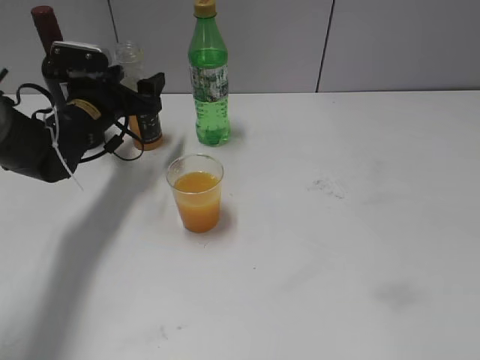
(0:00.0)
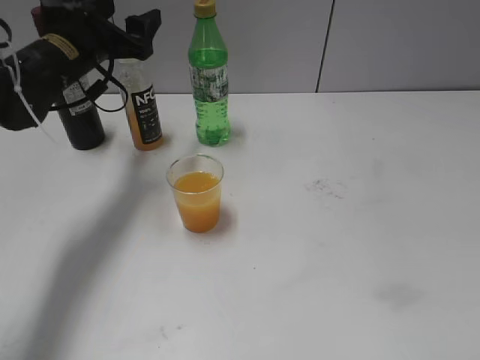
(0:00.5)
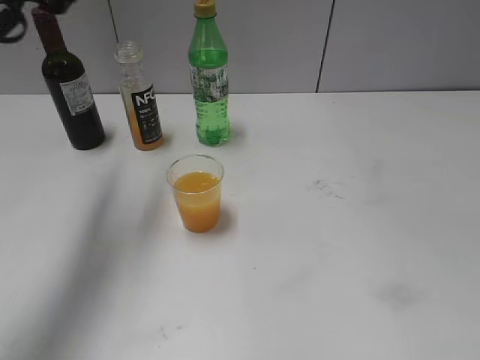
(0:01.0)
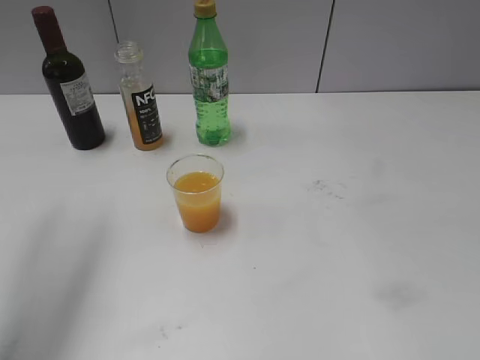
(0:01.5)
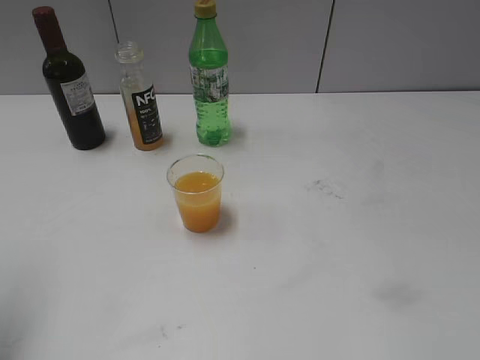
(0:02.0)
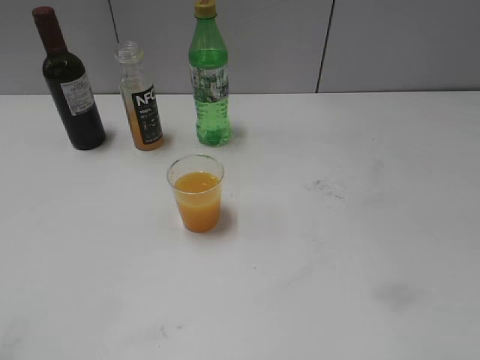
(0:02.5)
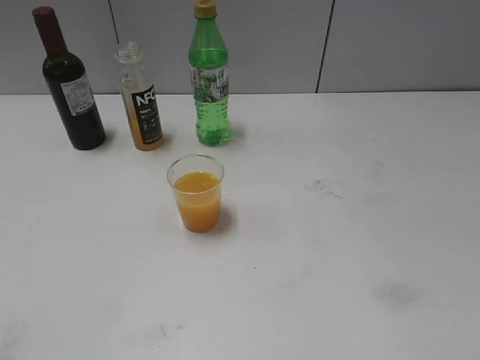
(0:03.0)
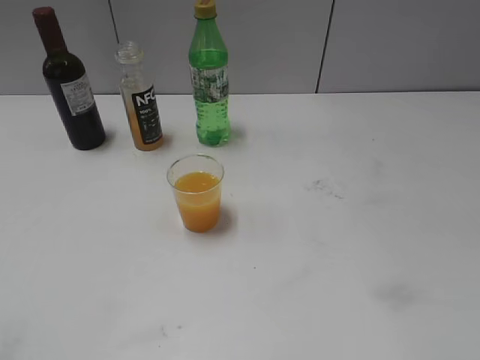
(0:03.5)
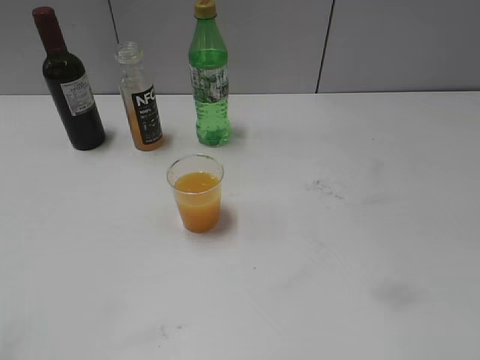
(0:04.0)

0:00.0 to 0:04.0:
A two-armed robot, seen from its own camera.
0:00.0 to 0:02.0: The left gripper moves upward, backward and to the left, approximately 40 cm.
0:02.0 to 0:04.0: The left gripper heads backward and downward, covering roughly 20 cm.

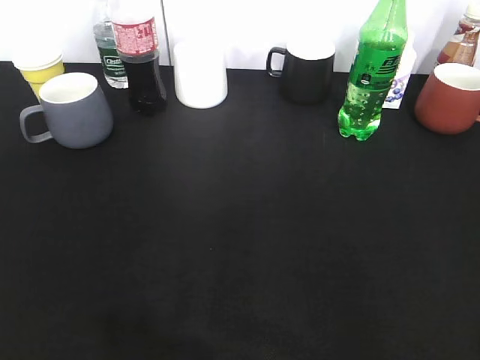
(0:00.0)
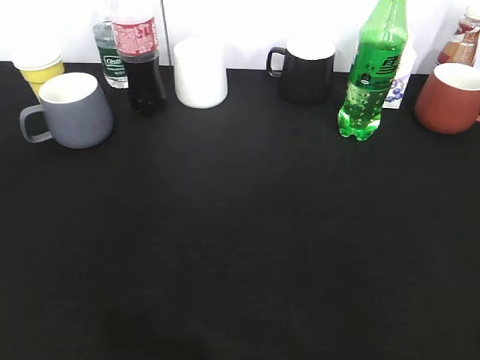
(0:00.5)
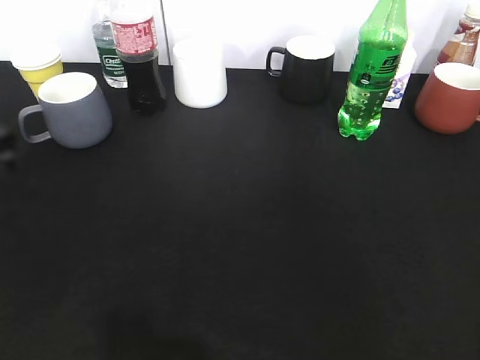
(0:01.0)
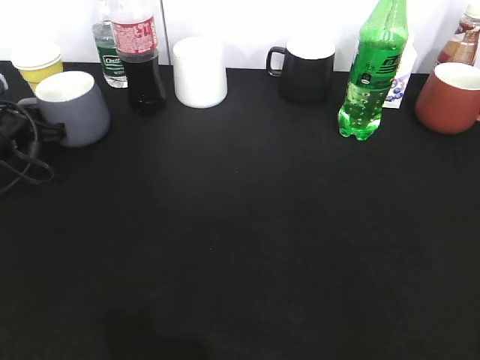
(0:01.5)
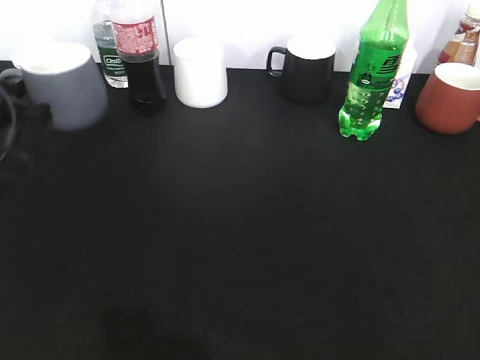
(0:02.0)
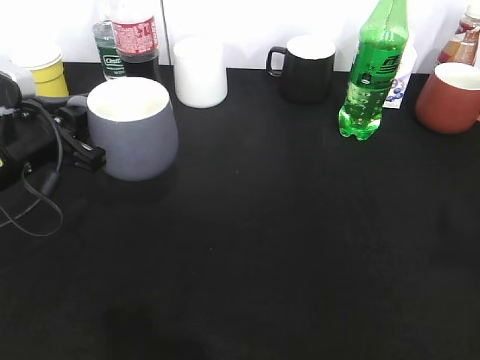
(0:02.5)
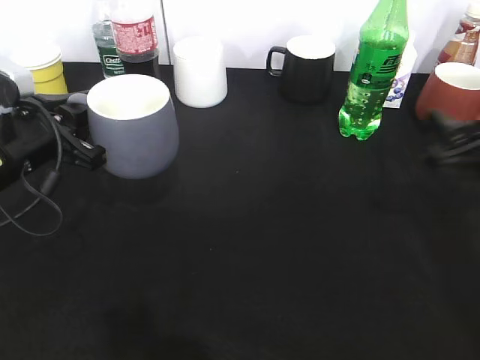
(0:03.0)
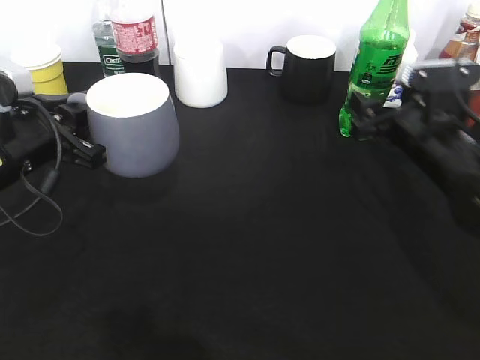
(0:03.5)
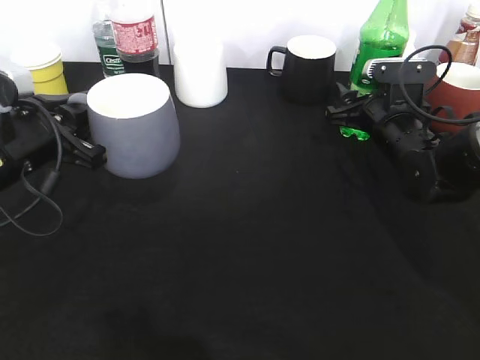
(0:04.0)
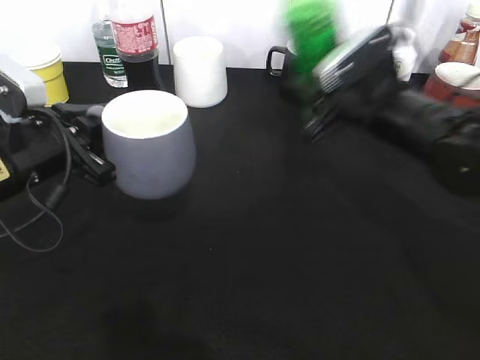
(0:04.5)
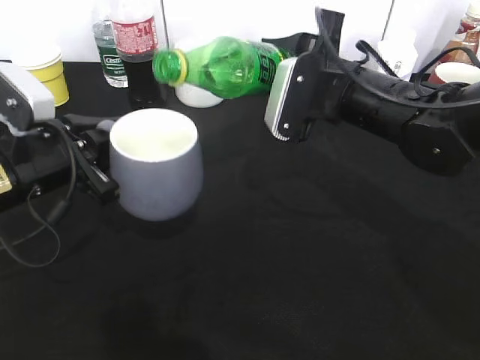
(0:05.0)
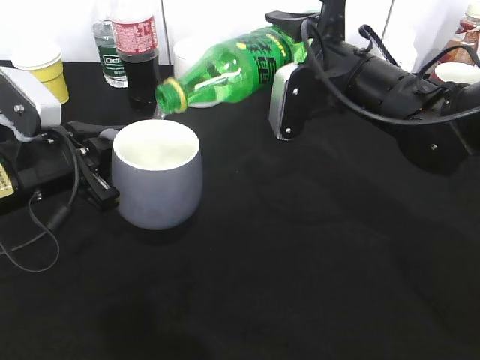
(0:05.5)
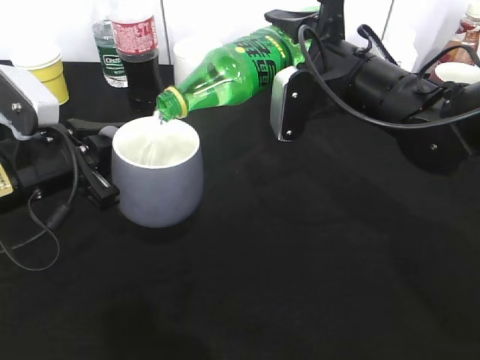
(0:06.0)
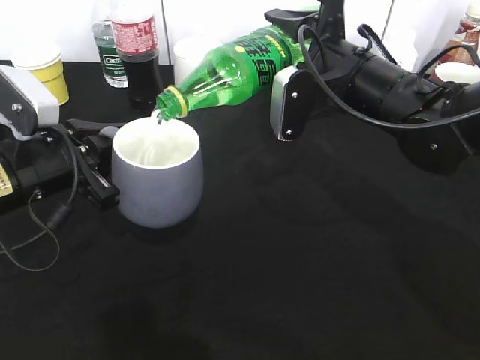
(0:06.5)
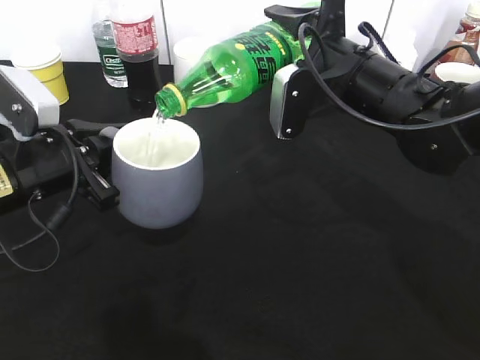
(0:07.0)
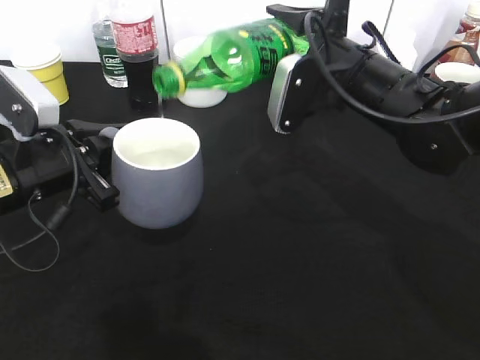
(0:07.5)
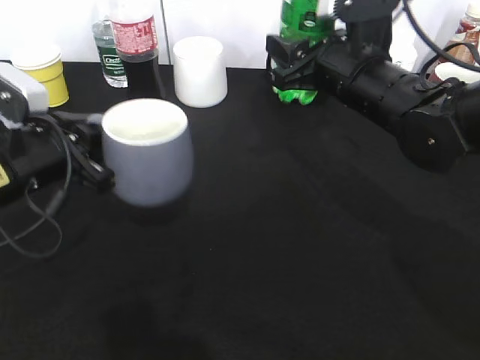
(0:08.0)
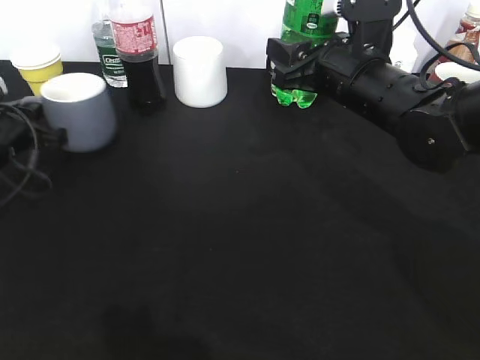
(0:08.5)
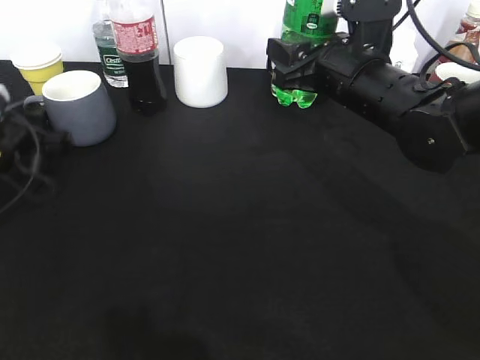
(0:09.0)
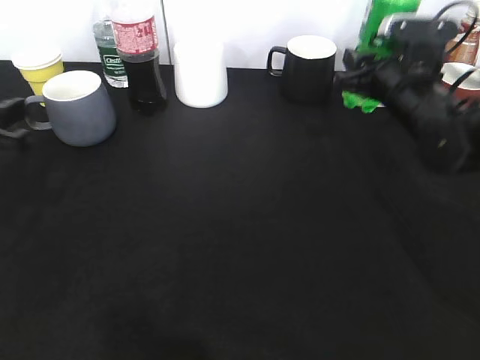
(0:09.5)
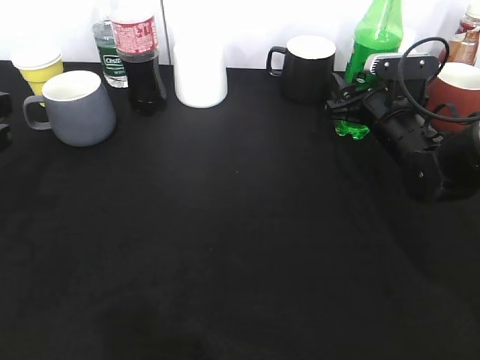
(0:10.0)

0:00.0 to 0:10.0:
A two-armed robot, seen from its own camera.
Step, 0:00.0 to 0:01.5: Grasp the grey cup with left gripper.
Step, 0:02.0 to 0:02.5: Lift the grey cup with left gripper.
Step, 0:03.0 to 0:04.0: Grasp the bottle with sprite with right gripper.
Step, 0:04.5 to 0:07.5: Pour the sprite from bottle to cup with right gripper.
0:00.0 to 0:02.0: The left gripper heads forward, covering about 35 cm, and closes its fingers.
0:02.0 to 0:04.0: The left gripper travels to the right and backward by about 10 cm, while the right gripper is displaced forward and downward by about 40 cm.
0:04.0 to 0:06.0: The right gripper travels upward and to the left by roughly 15 cm, and closes.
0:08.0 to 0:10.0: The left gripper heads to the left and upward, covering about 10 cm, reaches roughly 10 cm forward, then returns, and opens, while the right gripper shifts about 10 cm downward and to the right, and opens up.

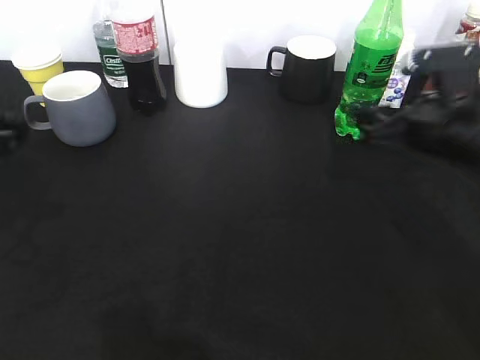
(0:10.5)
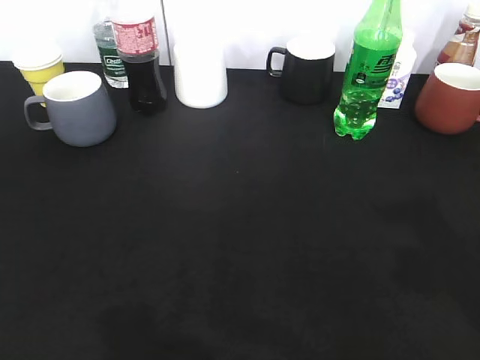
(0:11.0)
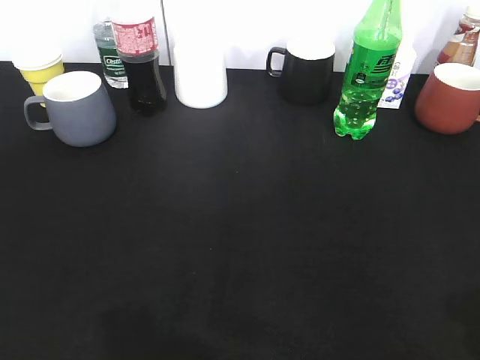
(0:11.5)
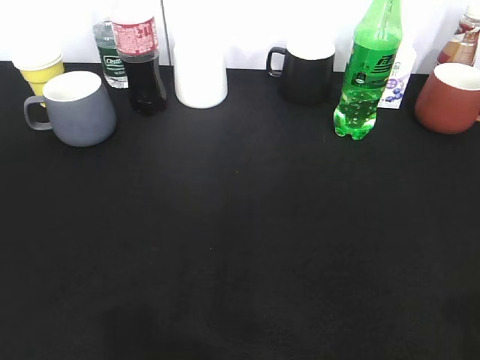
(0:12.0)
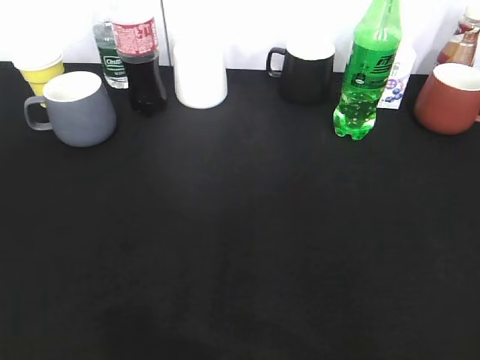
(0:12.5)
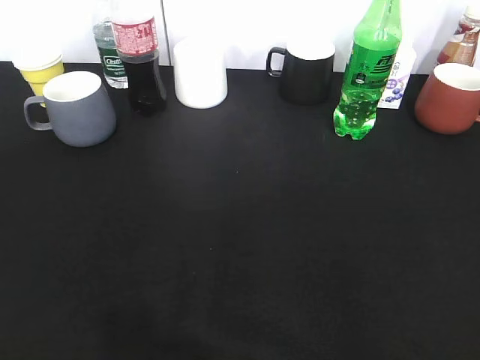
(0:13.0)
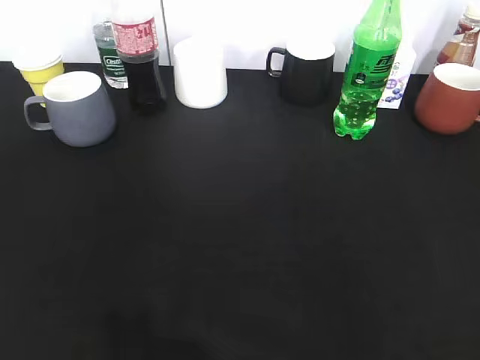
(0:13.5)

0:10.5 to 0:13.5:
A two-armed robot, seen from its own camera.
0:10.5 to 0:12.0: Both grippers travel together backward, some 20 cm.

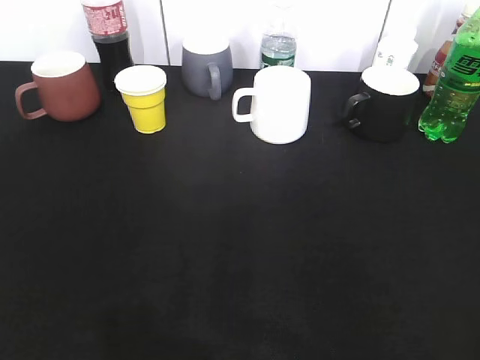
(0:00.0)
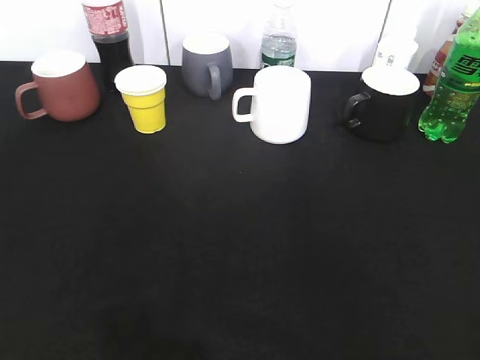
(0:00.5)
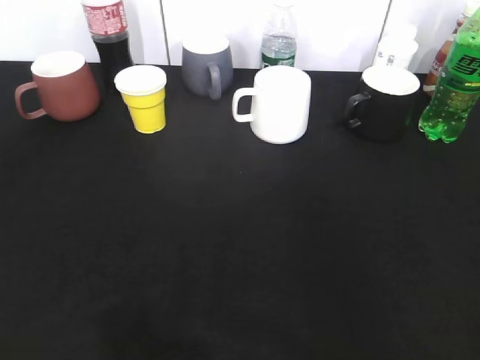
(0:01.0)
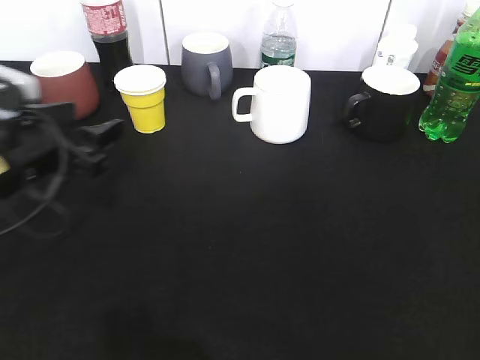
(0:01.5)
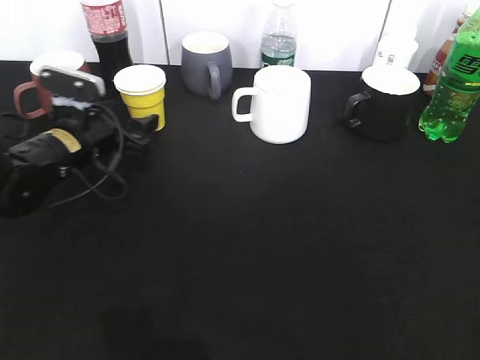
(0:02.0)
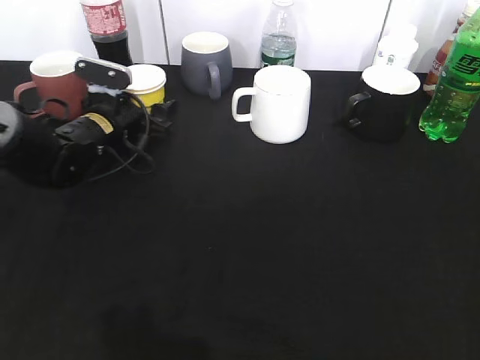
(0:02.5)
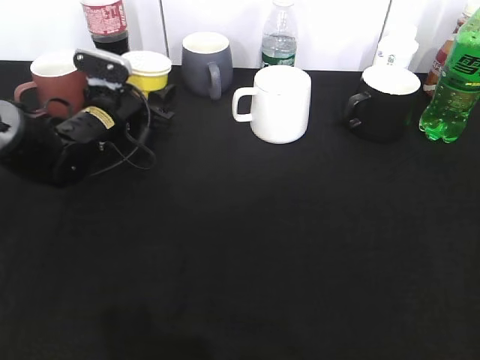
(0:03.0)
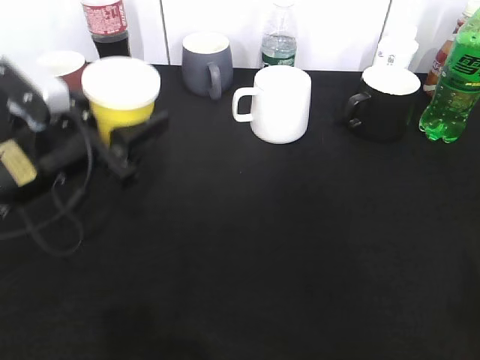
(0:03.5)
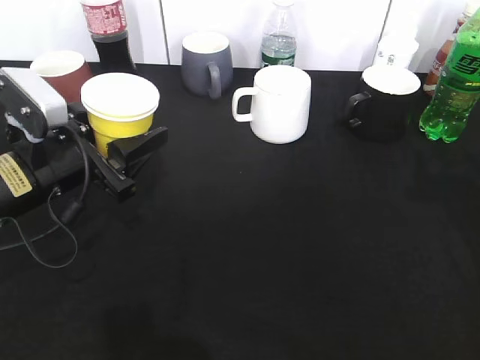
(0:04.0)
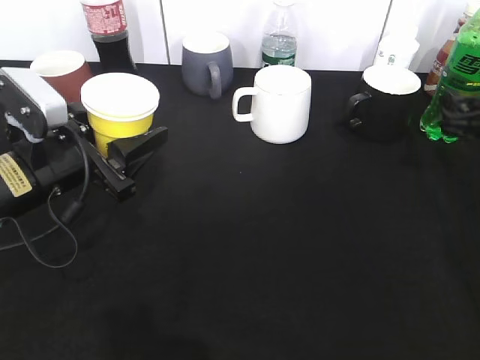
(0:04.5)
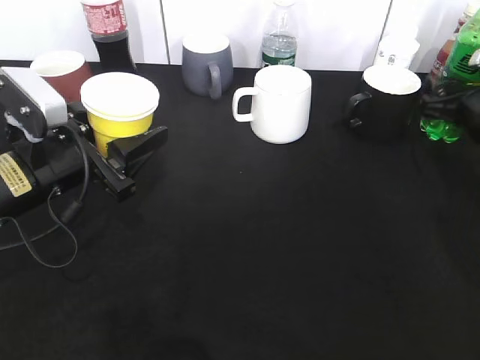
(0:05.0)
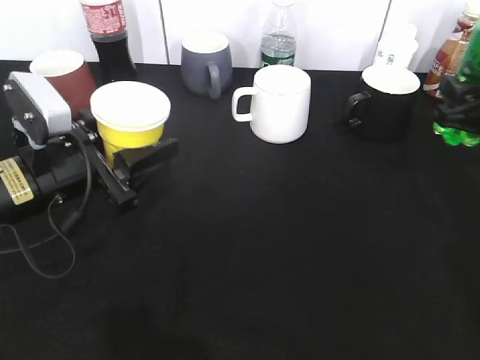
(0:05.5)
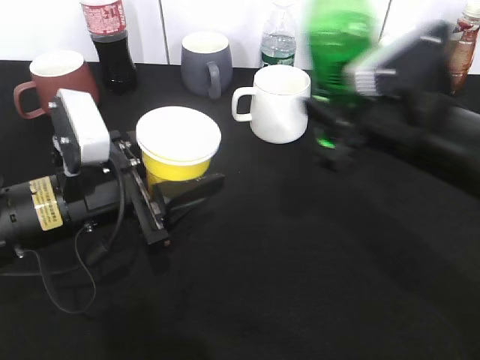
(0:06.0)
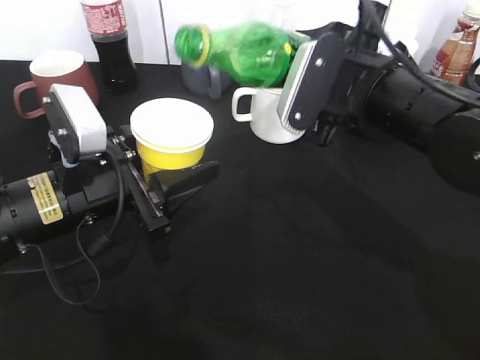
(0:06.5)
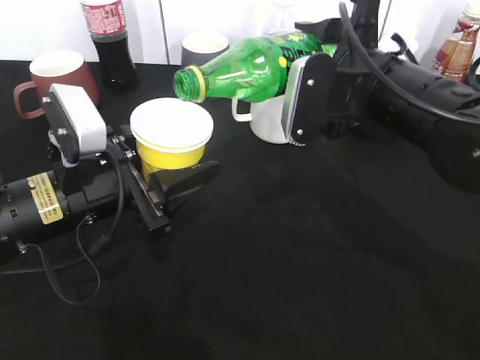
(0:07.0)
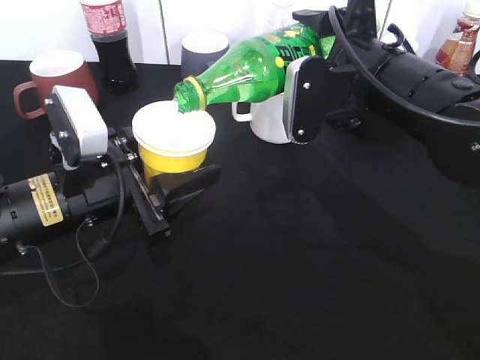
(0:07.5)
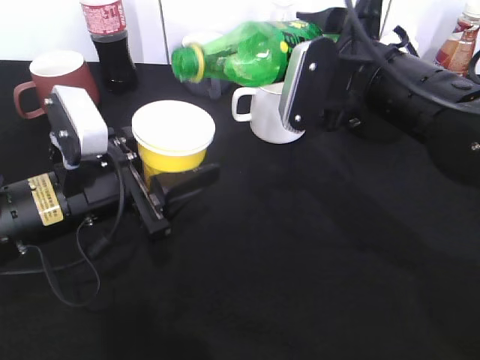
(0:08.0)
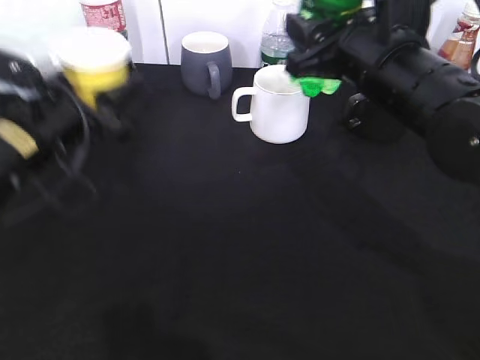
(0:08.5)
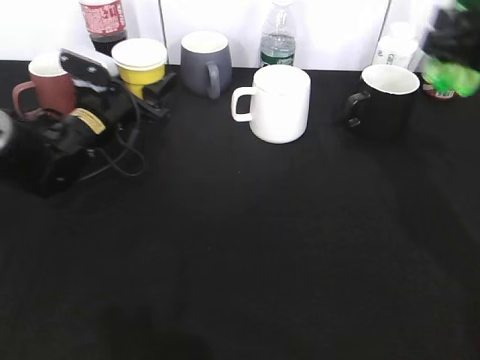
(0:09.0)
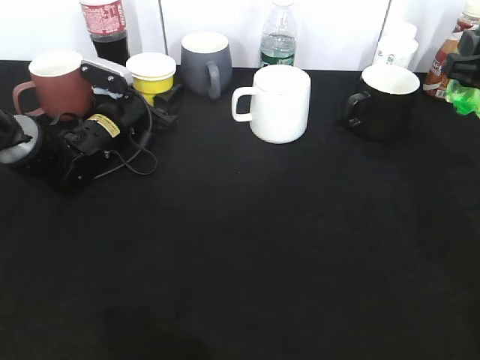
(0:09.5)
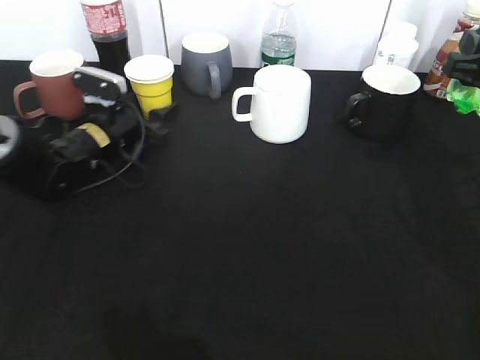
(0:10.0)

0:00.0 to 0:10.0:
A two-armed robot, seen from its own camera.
Step, 0:00.0 to 0:02.5: Grasp the yellow paper cup with left gripper.
Step, 0:03.0 to 0:04.0: Lift the yellow paper cup with left gripper.
Step, 0:05.5 to 0:07.5: Pour the sprite from bottle to cup with right gripper.
0:00.0 to 0:02.0: The left gripper moves forward and downward, about 40 cm, and opens up.
0:02.0 to 0:04.0: The left gripper moves backward, approximately 10 cm, and closes up.
0:04.0 to 0:06.0: The right gripper shifts some 15 cm to the left, and closes its fingers, while the left gripper changes place by roughly 5 cm.
0:06.0 to 0:08.0: The right gripper changes place by about 5 cm.
0:08.0 to 0:10.0: The left gripper goes some 20 cm forward and downward, and opens up; the right gripper is displaced to the right by approximately 15 cm.
